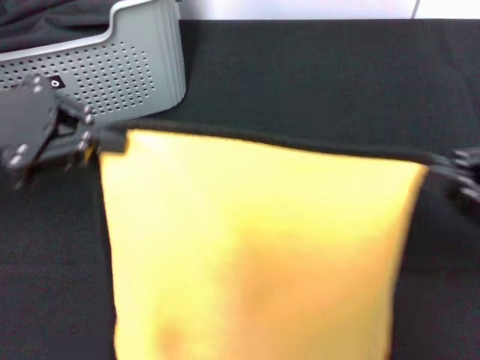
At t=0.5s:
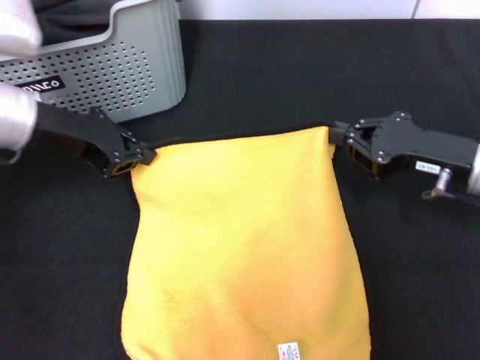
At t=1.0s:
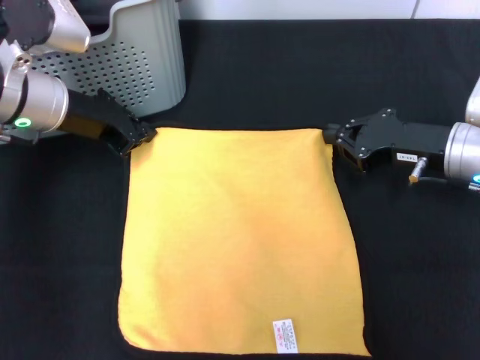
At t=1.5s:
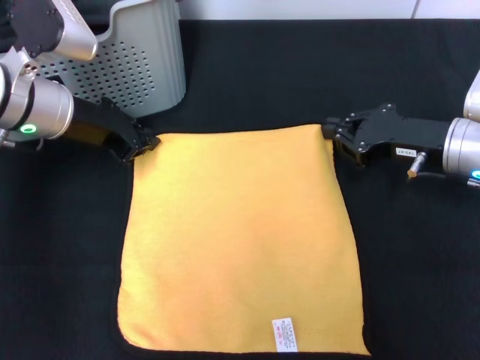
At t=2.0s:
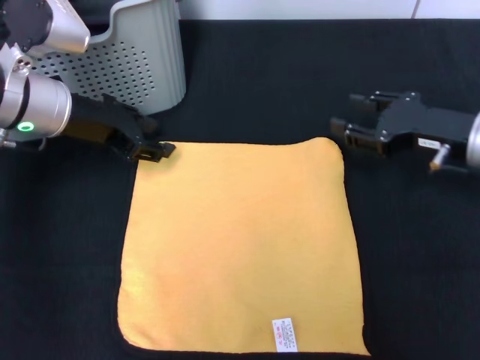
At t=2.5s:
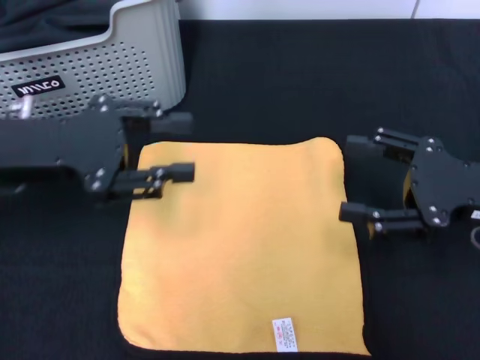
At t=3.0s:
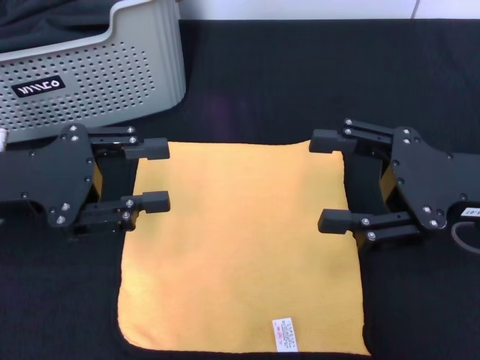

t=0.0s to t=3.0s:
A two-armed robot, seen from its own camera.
Task of the whole recording: pick up the towel from the storage box and lay it flat on the black tablecloth.
t=0.0s to t=1.5s: The left gripper shifts approximately 15 cm forward, downward and to the right, while the right gripper shifts roughly 15 cm forward and to the left.
t=1.5s to t=3.0s: The left gripper travels backward by approximately 10 cm, and opens up; the right gripper moves backward and upward, roughly 10 cm, and opens its fingers.
